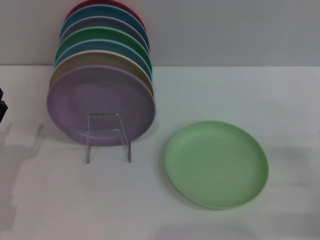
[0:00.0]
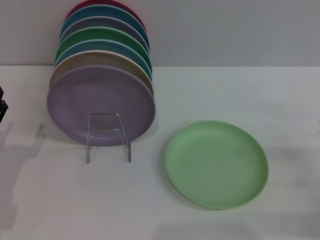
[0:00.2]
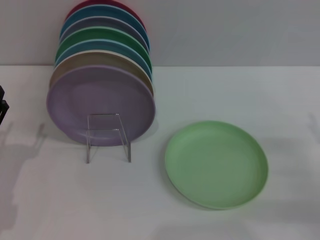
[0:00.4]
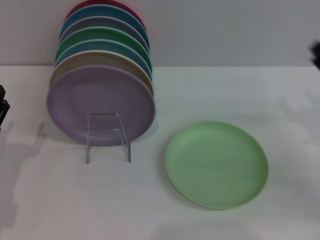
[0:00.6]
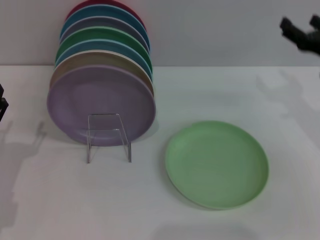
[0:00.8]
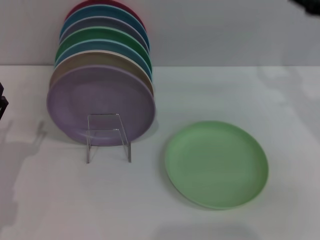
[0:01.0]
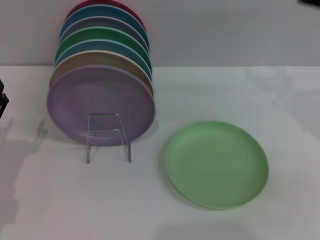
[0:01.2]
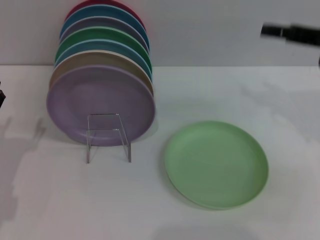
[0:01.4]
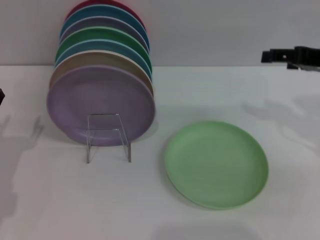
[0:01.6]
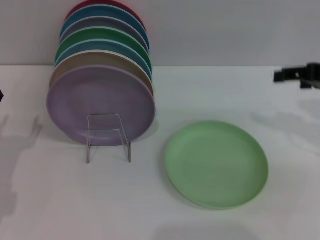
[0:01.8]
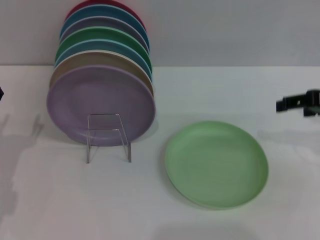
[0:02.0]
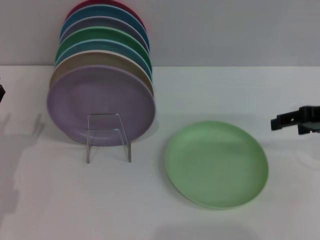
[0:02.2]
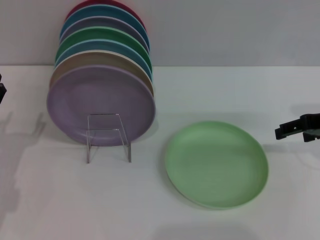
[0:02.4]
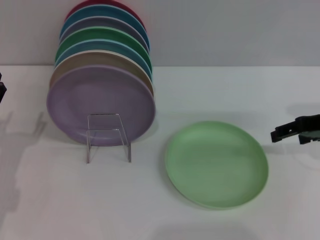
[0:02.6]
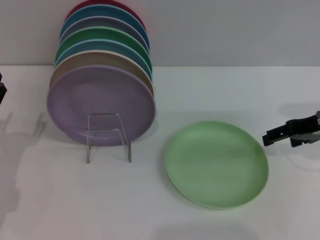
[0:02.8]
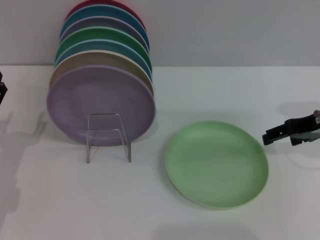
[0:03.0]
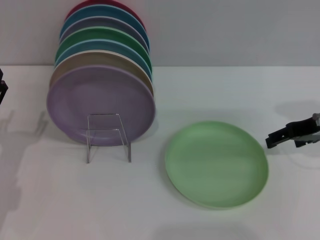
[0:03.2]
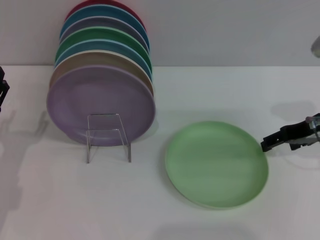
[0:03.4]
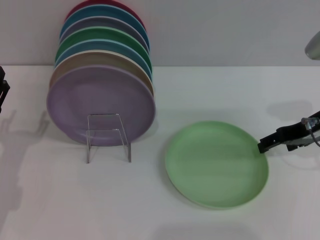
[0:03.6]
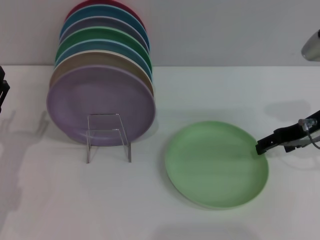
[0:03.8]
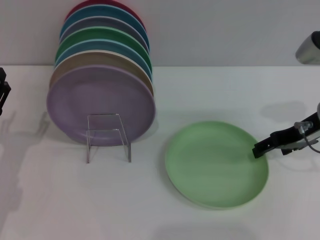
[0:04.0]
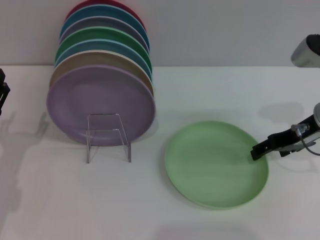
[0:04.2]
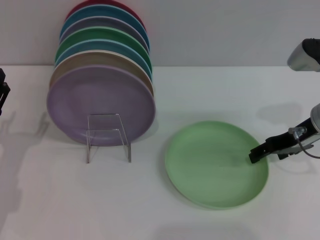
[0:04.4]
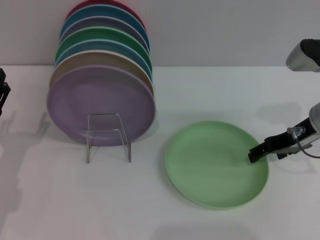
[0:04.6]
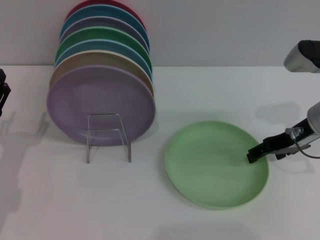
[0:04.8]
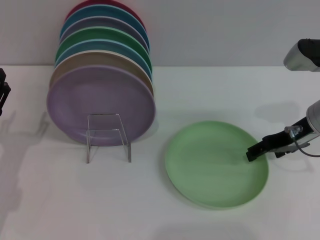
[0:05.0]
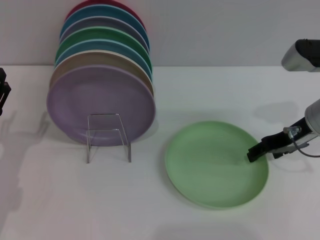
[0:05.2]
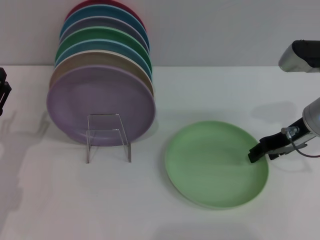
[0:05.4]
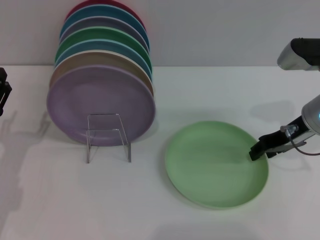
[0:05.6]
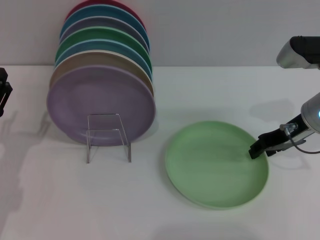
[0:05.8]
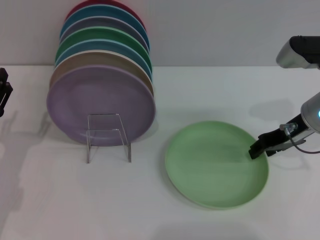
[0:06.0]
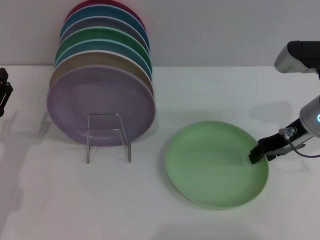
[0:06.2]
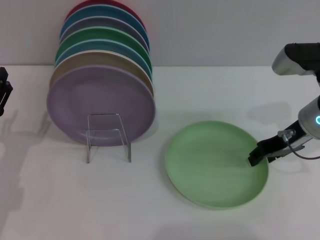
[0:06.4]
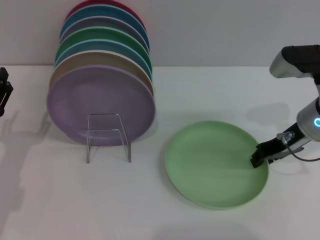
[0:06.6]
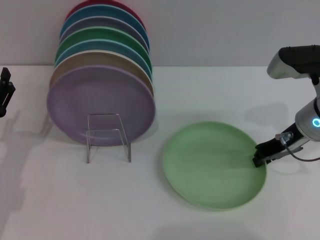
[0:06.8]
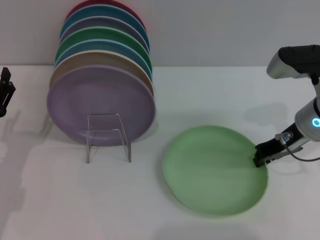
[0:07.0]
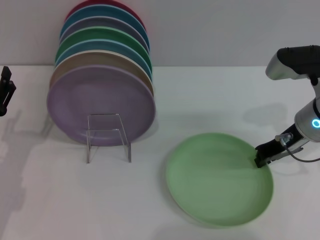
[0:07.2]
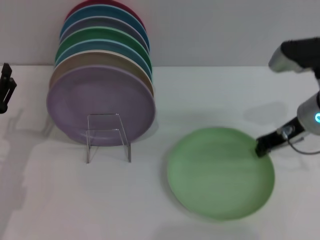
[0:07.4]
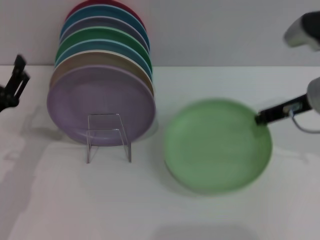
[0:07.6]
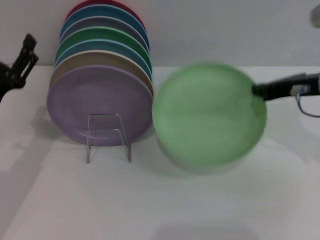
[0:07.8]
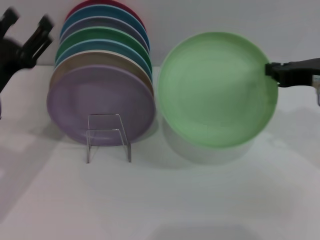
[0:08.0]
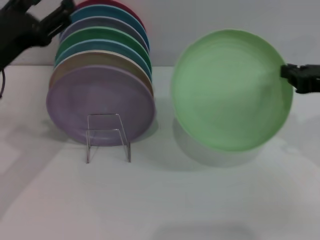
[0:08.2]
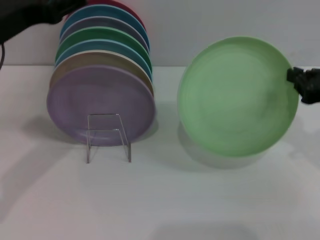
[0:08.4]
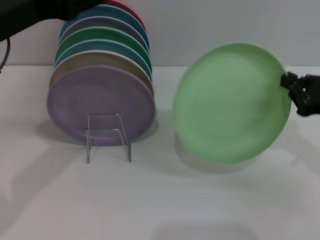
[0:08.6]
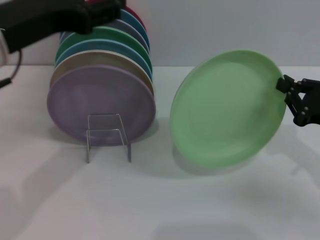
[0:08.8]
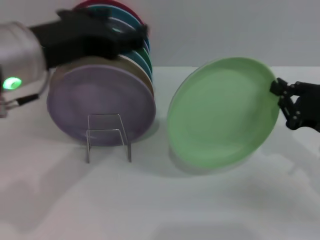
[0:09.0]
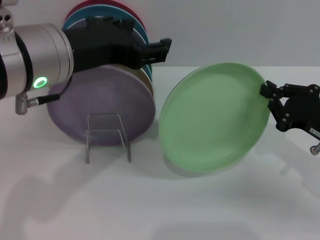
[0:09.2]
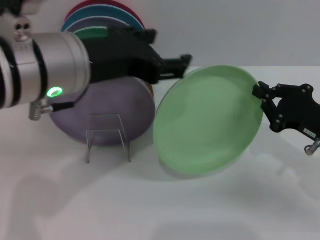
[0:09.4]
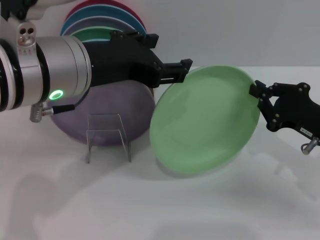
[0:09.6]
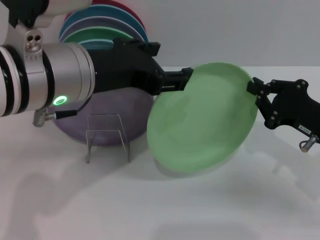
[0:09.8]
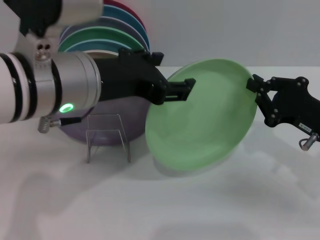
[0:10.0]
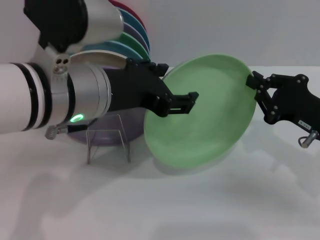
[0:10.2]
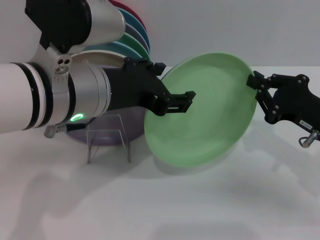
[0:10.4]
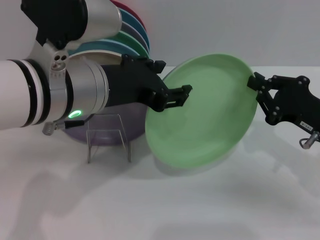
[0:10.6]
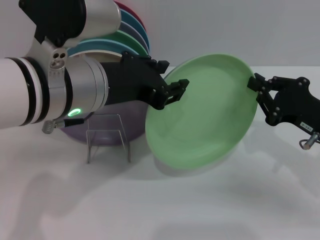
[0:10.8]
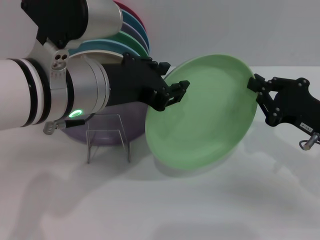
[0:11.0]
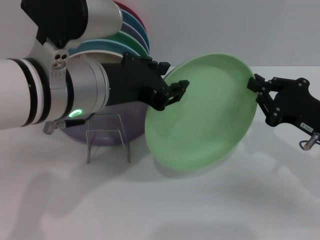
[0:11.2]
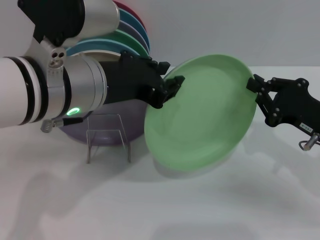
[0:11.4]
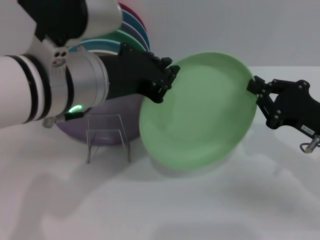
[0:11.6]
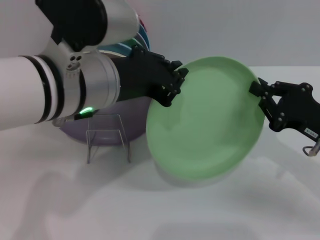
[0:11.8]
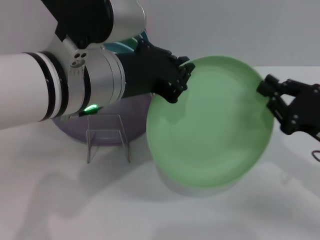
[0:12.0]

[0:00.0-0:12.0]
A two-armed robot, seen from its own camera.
Task of the whole recording: Grip the plate with one hand, pass it to the other, then set it on the shelf.
Step, 0:00.0 to 0:07.6: Pick up the plate with the right gripper.
0:00.0 to 0:01.6: The right gripper goes about 20 cm upward and forward.
0:01.6 to 0:03.0: The right gripper travels downward by some 5 cm.
0:03.0 to 0:04.4: The grippers move only a little.
0:04.4 to 0:06.0: The right gripper closes.
0:06.0 to 0:07.6: The right gripper closes up.
0:07.6 to 0:09.0: The right gripper moves downward, backward and to the right, approximately 15 cm; the left gripper is displaced upward and to the right by some 25 cm.
0:09.0 to 0:10.4: The left gripper shifts about 5 cm to the right.
0:10.4 to 0:12.0: The left gripper closes its fingers.

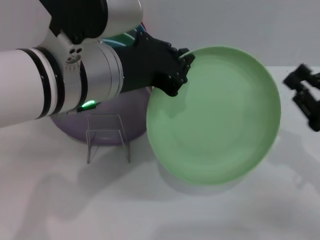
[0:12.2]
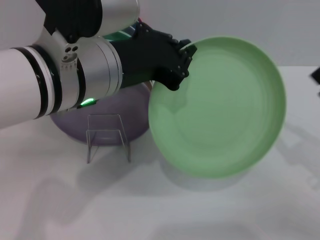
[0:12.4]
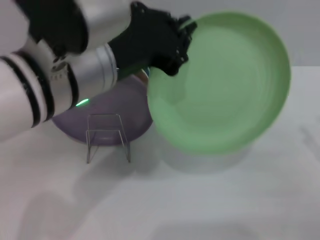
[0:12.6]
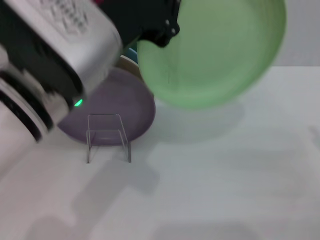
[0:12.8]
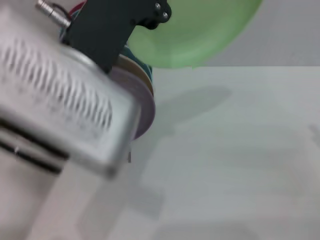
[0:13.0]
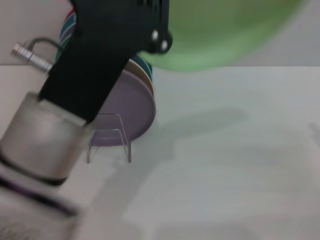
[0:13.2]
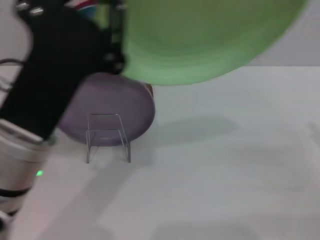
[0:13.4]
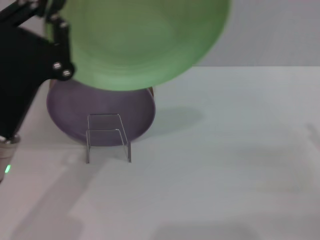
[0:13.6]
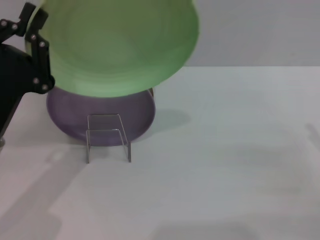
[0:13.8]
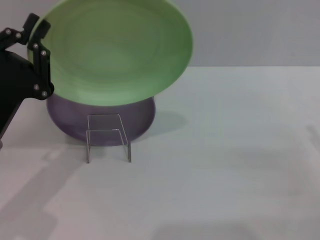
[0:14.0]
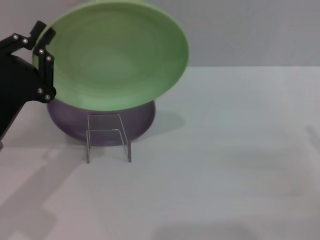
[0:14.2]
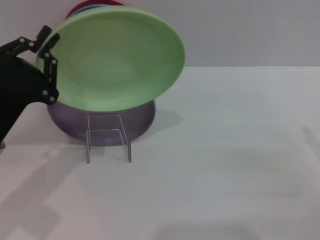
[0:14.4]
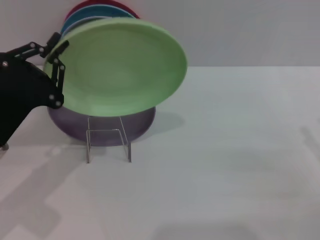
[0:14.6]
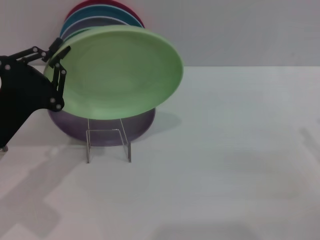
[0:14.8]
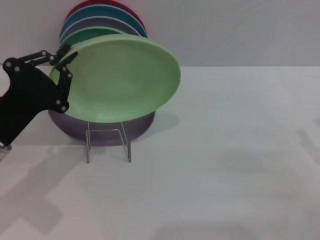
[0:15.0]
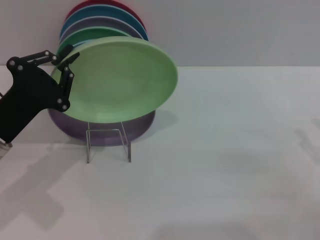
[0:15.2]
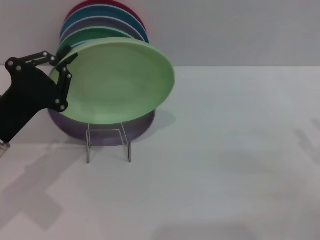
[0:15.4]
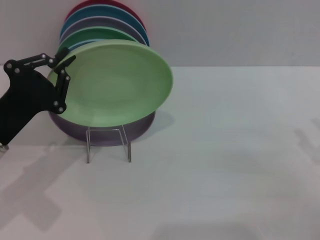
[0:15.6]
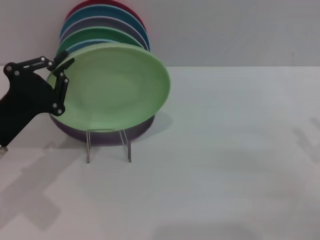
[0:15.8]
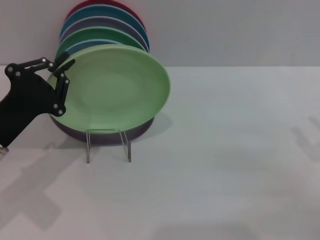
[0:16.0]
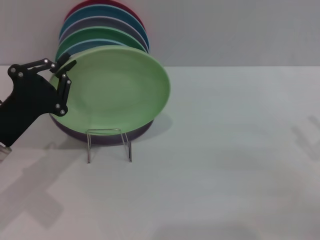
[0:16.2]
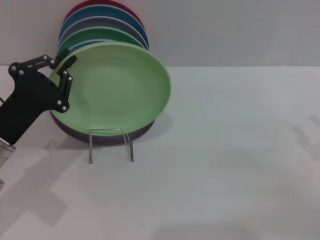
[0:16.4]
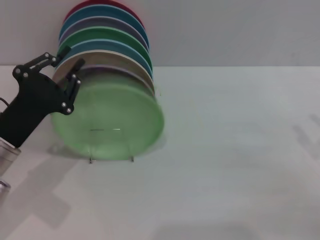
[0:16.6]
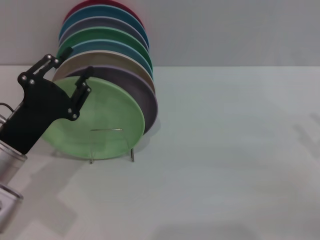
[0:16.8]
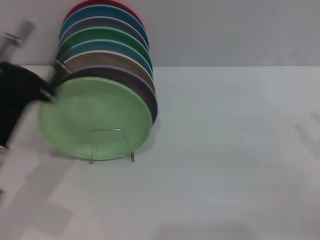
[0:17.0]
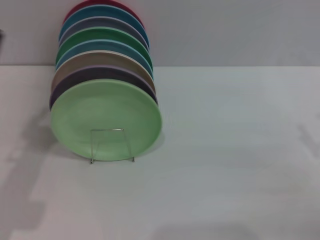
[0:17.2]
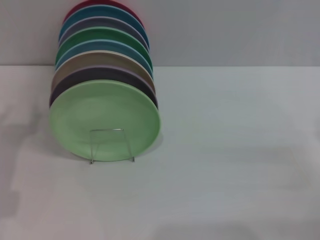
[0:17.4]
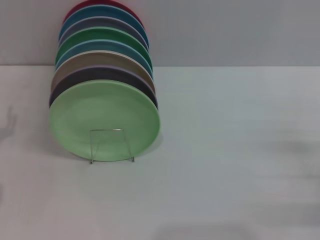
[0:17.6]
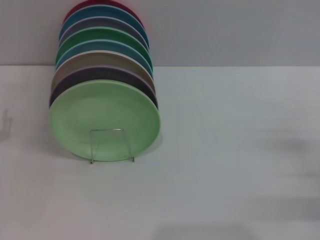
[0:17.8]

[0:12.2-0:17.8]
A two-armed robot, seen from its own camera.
Task of the whole recording: Grip the plate with one hand, pass it to the other, then set it on the shelf.
Step, 0:12.6 to 0:16.8: Place the plate on the shelf with the left gripper.
0:12.2 to 0:13.6: The left gripper moves downward and to the left, roughly 15 cm. Meanwhile the right gripper shifts roughly 5 cm to the right, and opens its fingers.
0:13.6 to 0:15.0: The left gripper moves to the left, some 5 cm.
0:15.0 to 0:16.4: The grippers make only small movements.
0:16.4 to 0:17.8: The right gripper moves downward, approximately 5 cm. The left gripper heads to the left, covering roughly 10 cm, and opens up.
